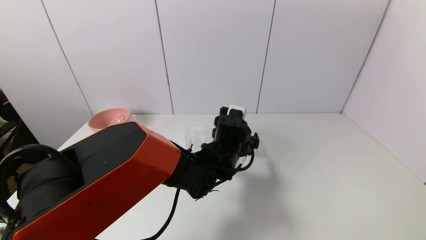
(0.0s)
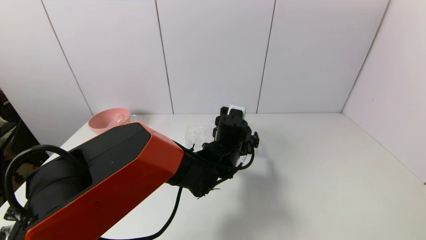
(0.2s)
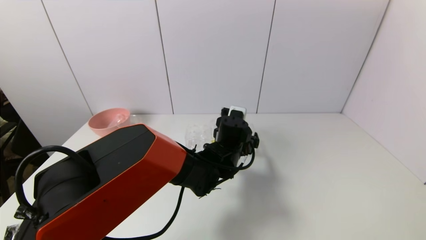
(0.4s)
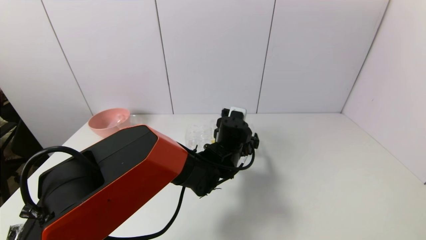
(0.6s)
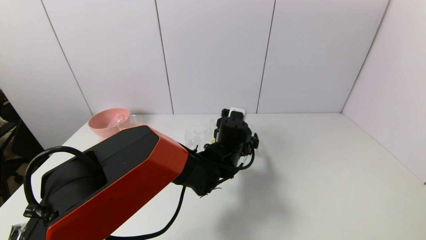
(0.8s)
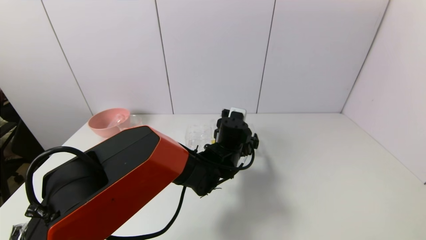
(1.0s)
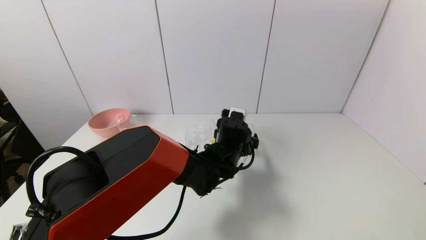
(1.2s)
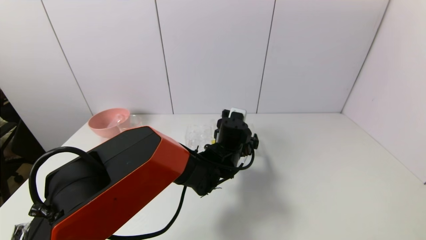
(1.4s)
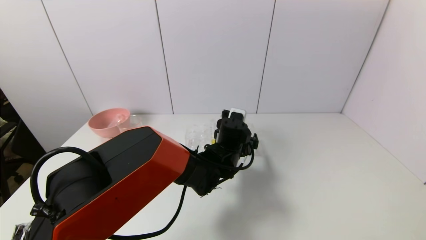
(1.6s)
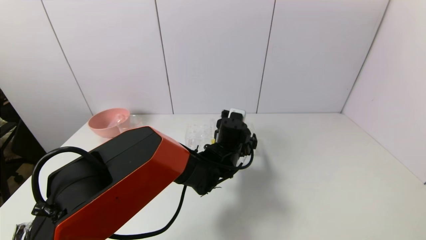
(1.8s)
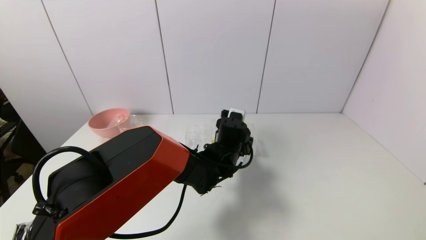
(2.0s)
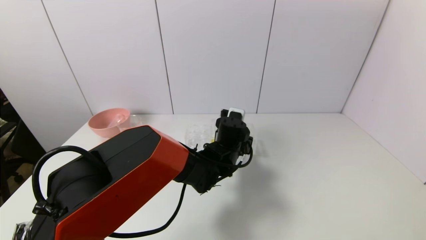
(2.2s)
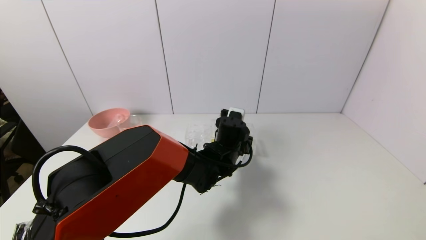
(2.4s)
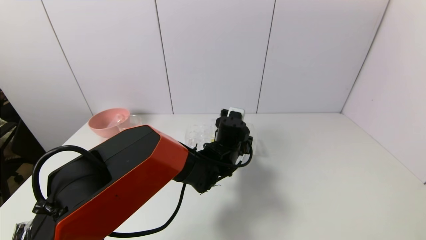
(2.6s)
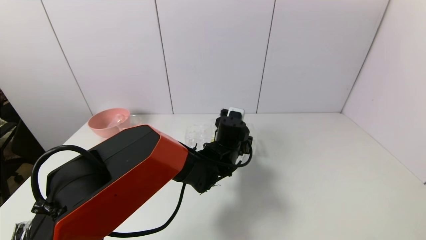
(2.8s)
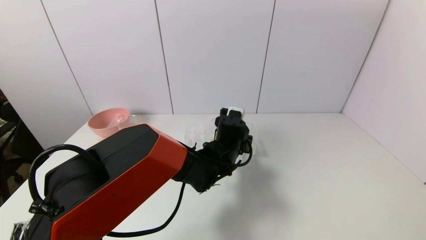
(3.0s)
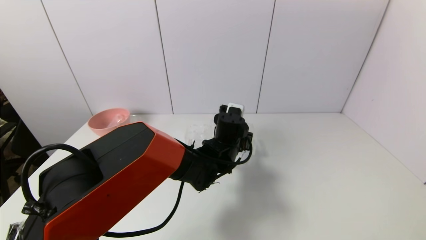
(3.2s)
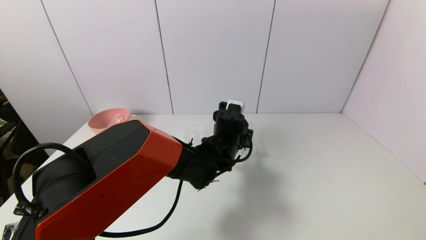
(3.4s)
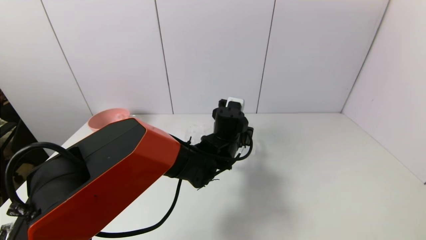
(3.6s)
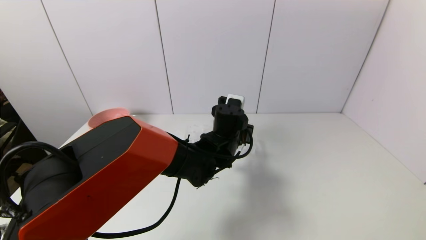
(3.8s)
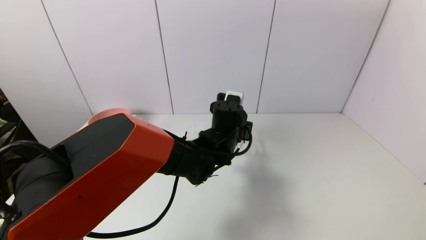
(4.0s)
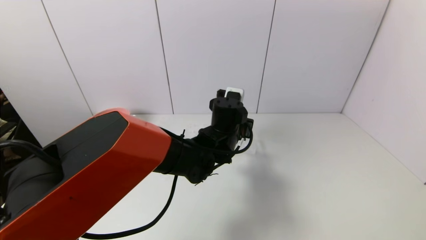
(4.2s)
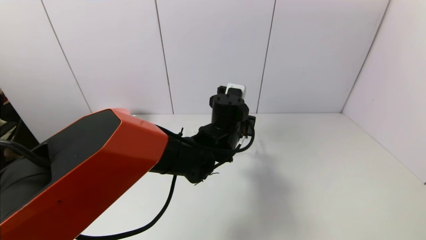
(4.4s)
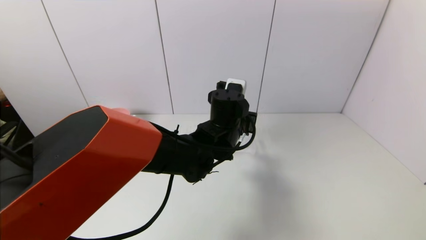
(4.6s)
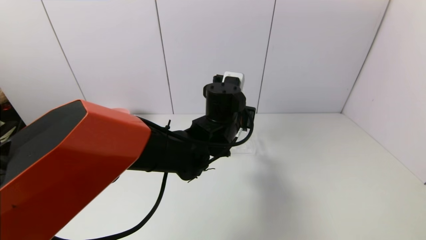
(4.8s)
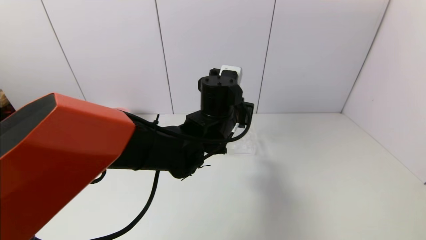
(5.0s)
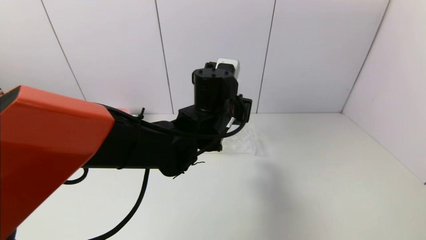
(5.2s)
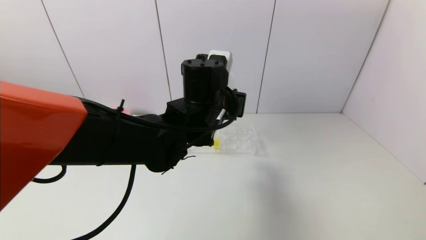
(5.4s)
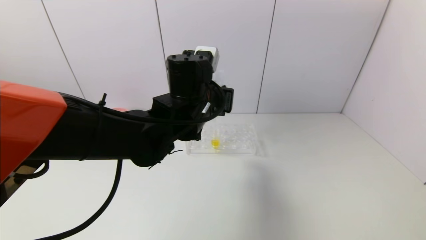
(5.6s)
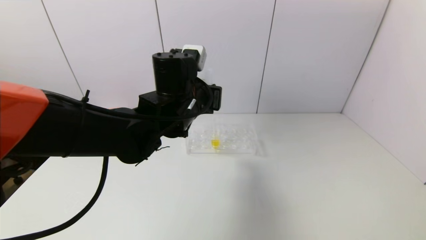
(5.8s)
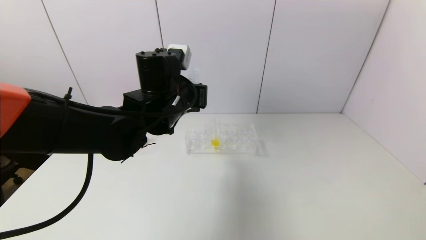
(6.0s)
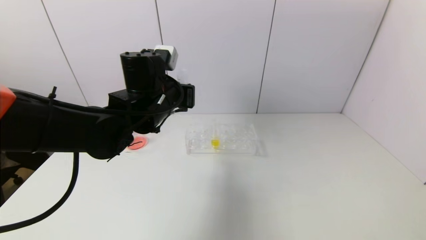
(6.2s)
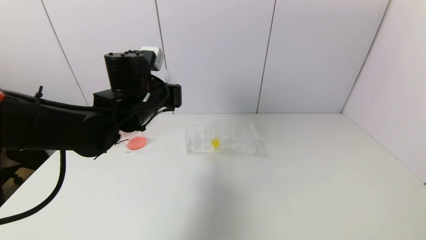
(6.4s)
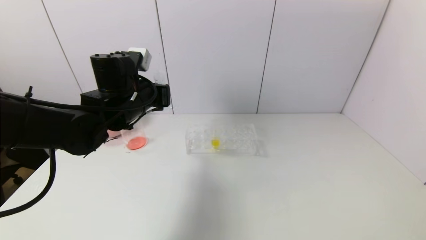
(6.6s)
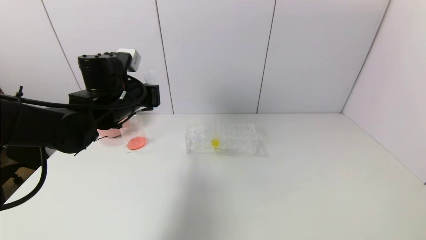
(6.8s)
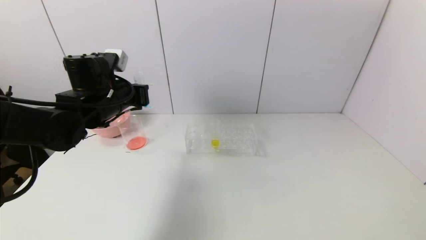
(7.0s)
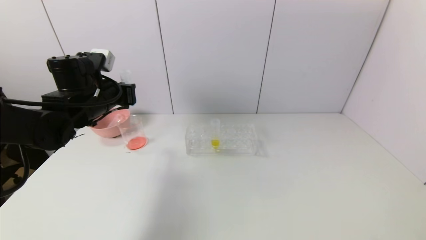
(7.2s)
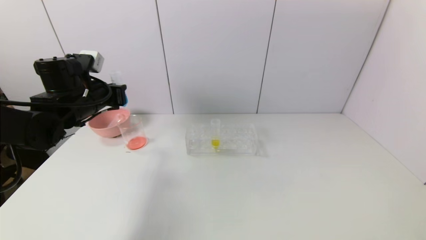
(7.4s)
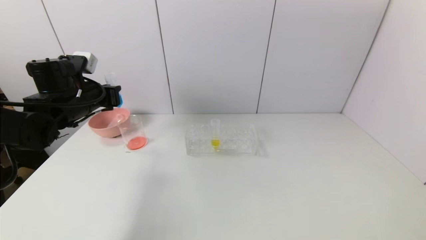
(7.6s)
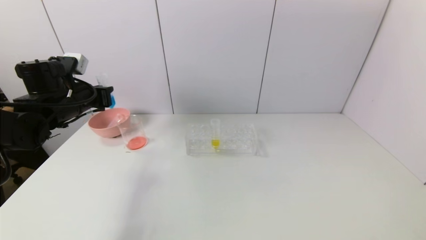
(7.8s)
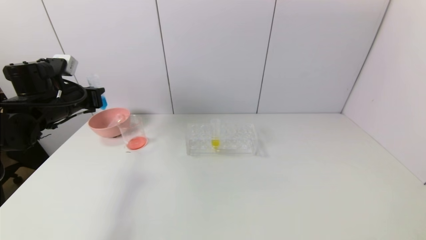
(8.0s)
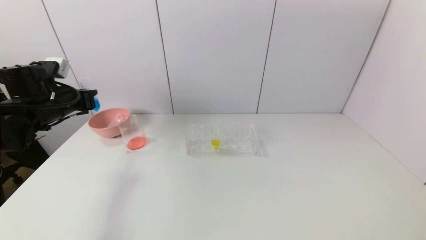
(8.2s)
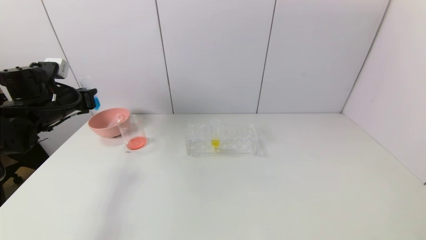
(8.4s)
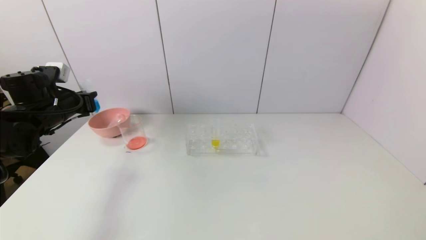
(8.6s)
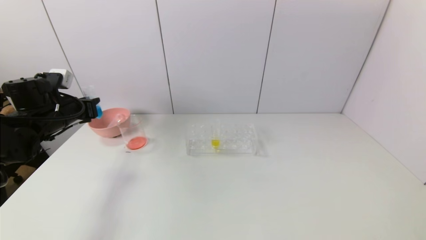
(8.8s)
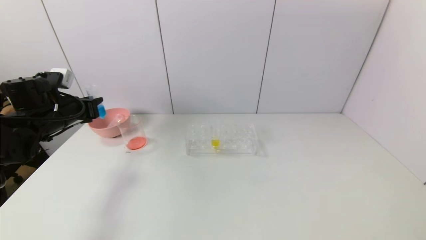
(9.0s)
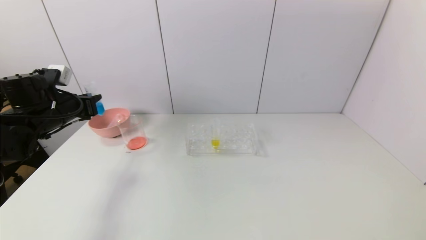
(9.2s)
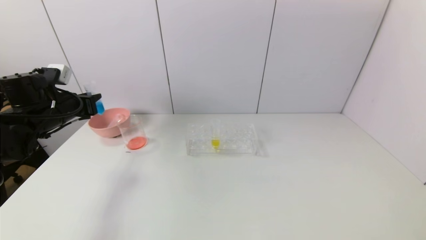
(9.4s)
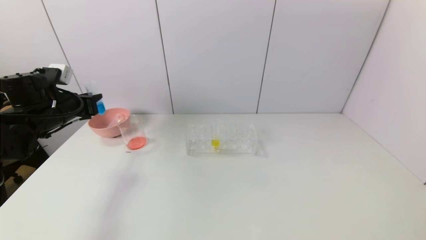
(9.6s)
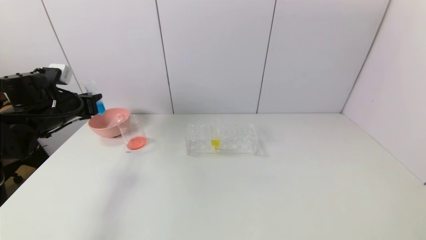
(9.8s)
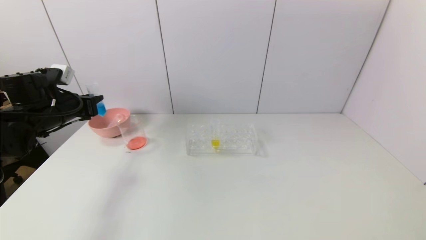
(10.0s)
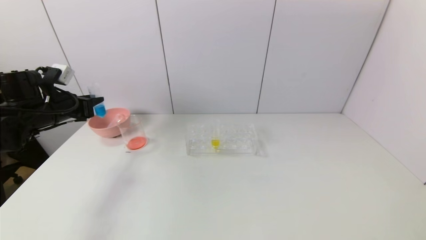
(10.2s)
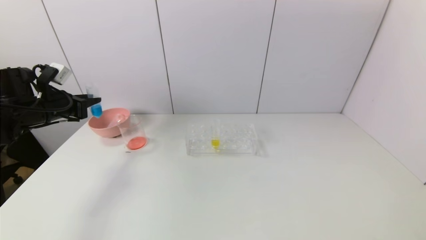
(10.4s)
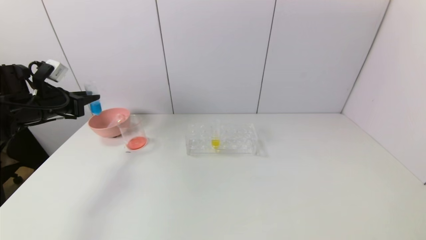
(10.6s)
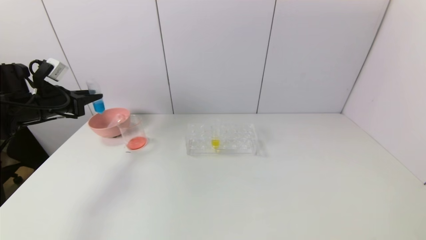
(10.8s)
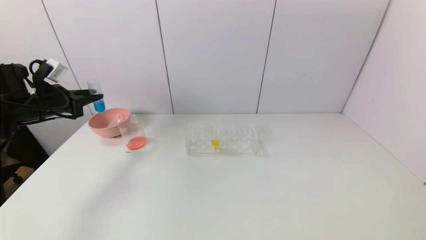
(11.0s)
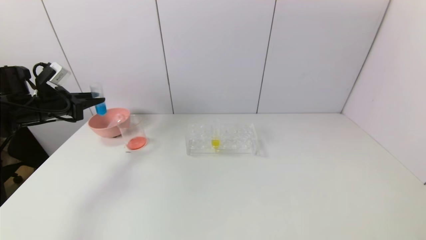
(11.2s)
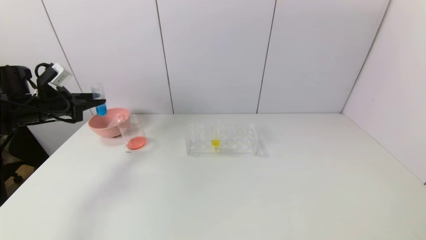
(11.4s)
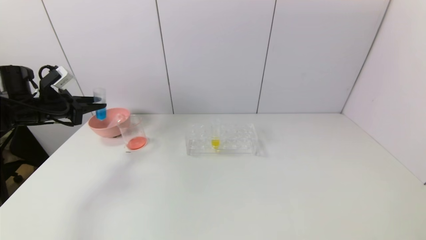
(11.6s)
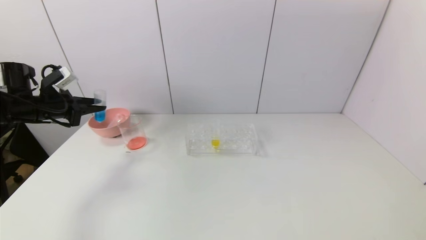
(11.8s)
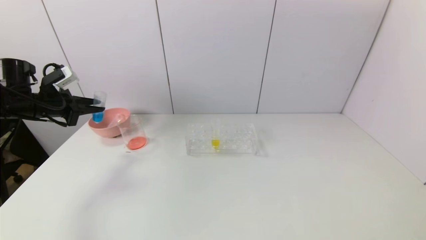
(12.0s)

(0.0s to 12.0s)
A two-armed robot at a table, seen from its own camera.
Task of the whole recording: pick up the test tube with red pigment and the test tube with blue pigment by grippers and pour them into the container.
Step, 0.0s - 2.4s: Grasp the blue reagent with the left gripper.
0.0s - 1.6s: There are only small adjustments of the grippers.
1.6s - 3.0s: The left gripper closes its fingers.
3.0s - 4.4s: The left gripper shifts approximately 5 cm upward.
4.4s - 6.0s: The left gripper heads to the left and upward, covering some 15 cm.
6.0s - 7.6s: The left gripper heads to the left, covering some 20 cm.
7.6s - 9.0s: The left gripper goes roughly 5 cm to the left.
9.0s - 10.4s: The grippers stay close to where they were, moving slightly.

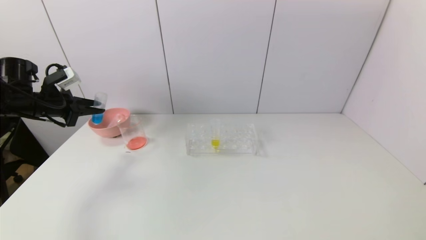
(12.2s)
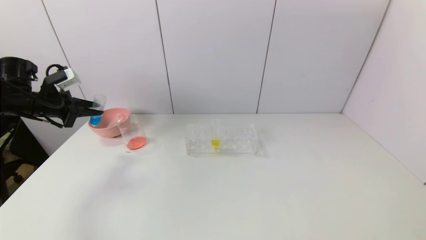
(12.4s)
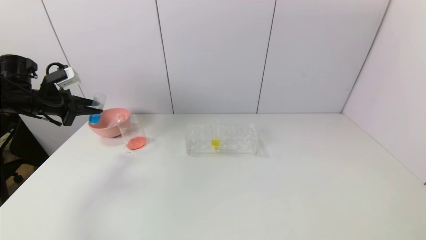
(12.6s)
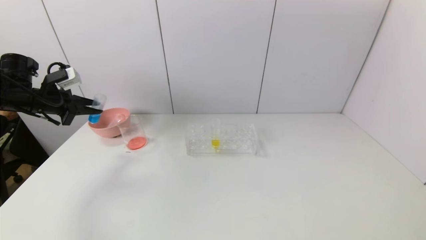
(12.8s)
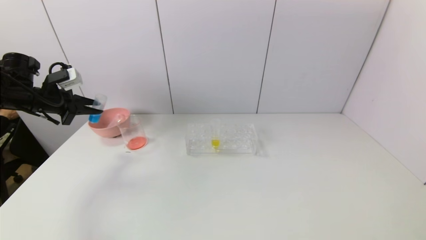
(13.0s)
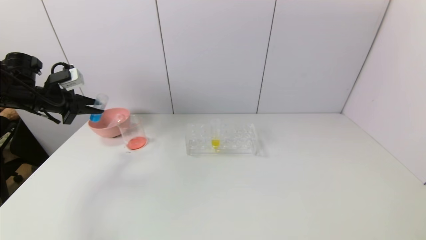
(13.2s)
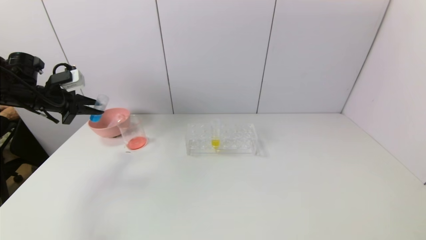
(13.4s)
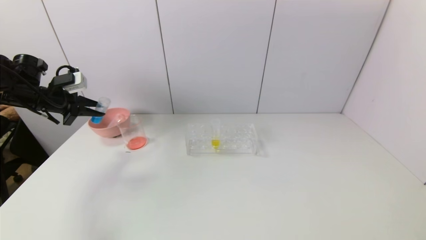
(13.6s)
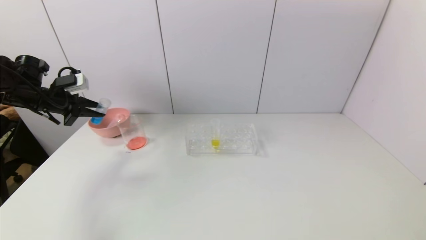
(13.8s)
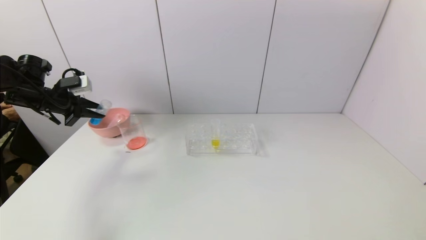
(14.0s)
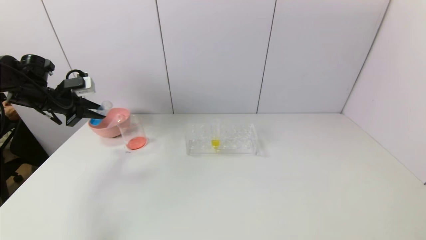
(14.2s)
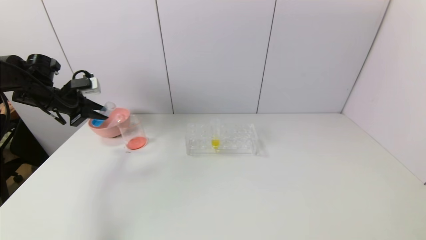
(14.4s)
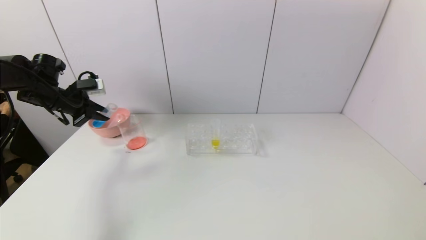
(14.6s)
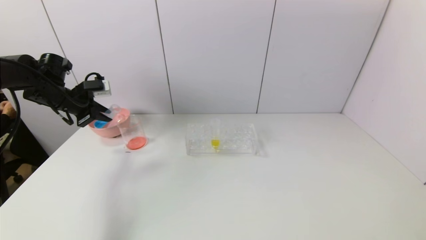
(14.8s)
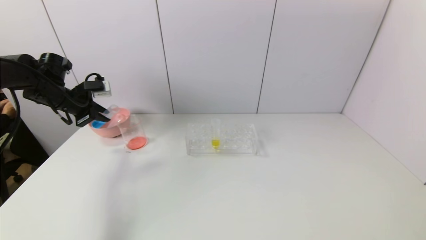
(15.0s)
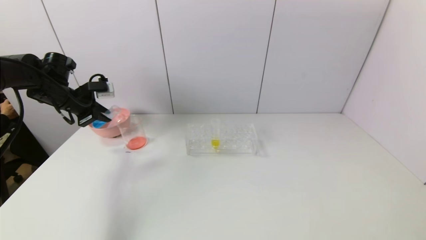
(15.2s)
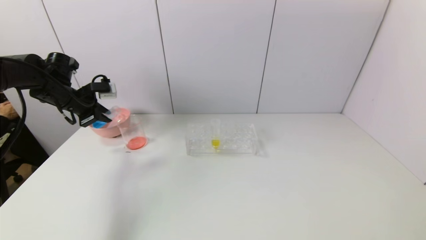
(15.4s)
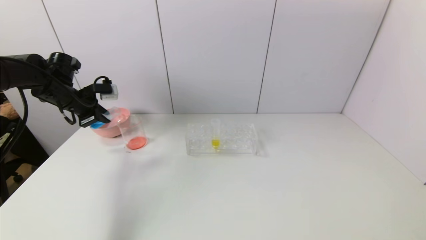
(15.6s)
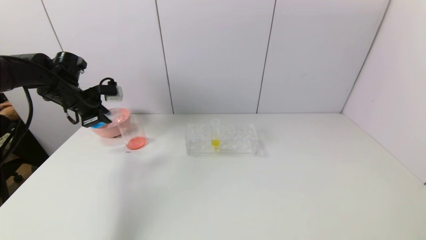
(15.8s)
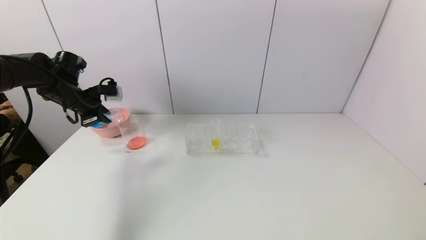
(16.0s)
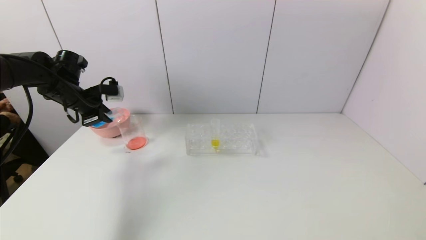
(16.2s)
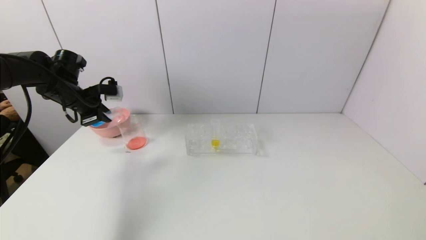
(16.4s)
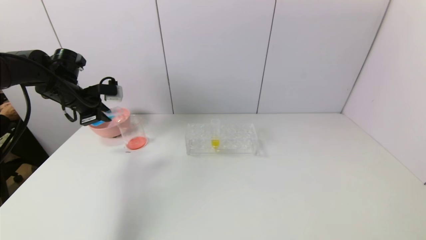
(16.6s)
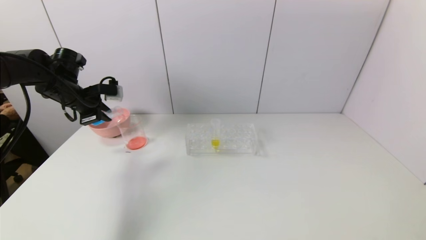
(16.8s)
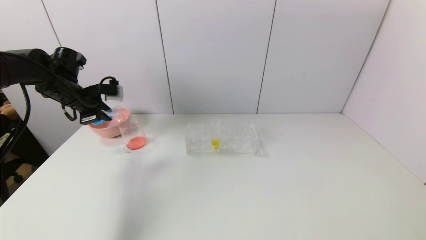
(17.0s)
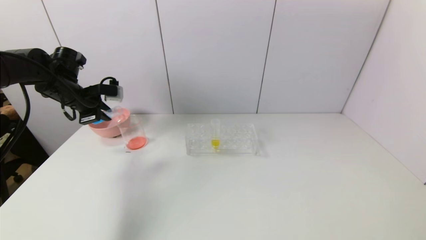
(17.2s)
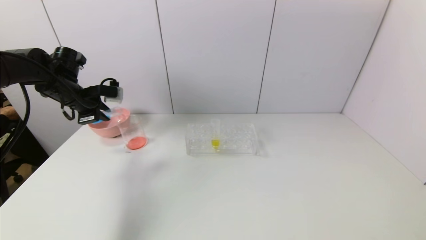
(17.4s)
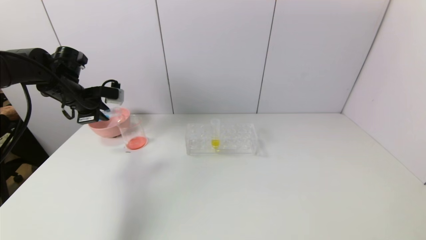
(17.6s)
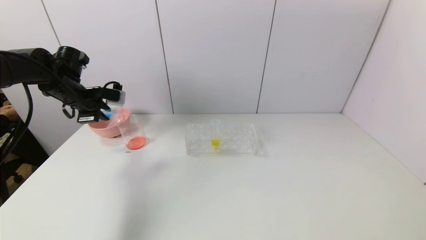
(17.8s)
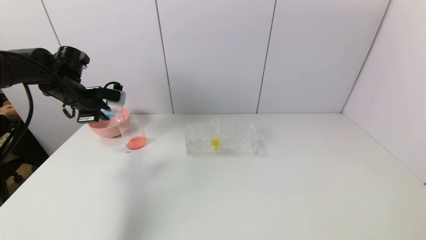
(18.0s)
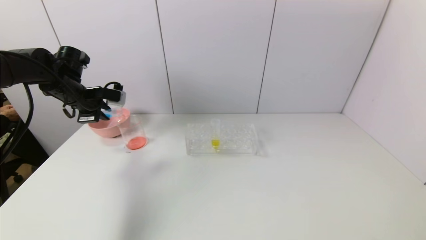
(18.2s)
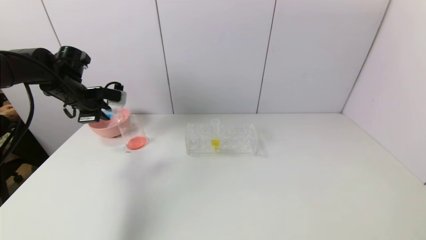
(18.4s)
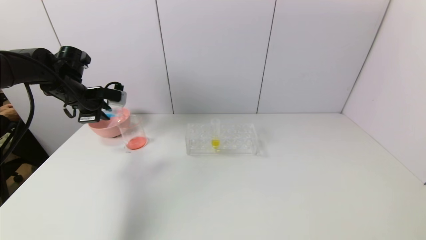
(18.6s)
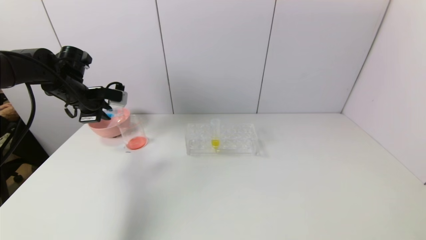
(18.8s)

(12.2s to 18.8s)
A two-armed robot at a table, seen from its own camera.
Task of the whole recording: pick up the test tube with red pigment and the test tube with blue pigment by grippers and pour them into the container.
12.2s - 13.8s: The grippers stay close to where they were, moving slightly.
13.8s - 15.4s: The left gripper shifts by some 5 cm.
15.4s - 17.2s: The grippers move only a little.
17.2s - 18.8s: The grippers move only a little.
